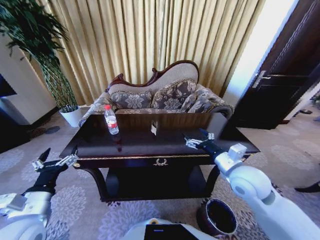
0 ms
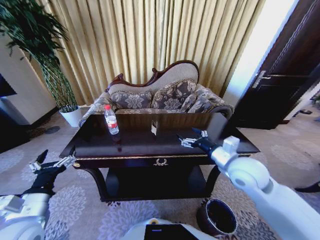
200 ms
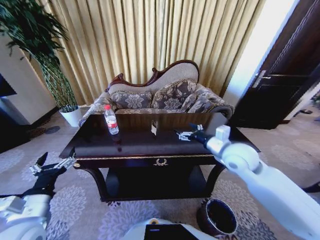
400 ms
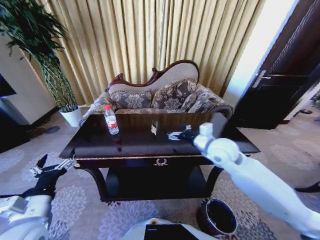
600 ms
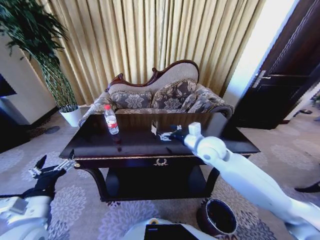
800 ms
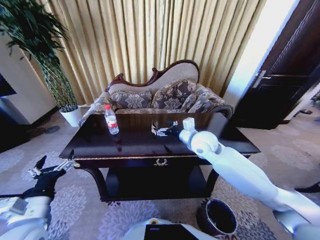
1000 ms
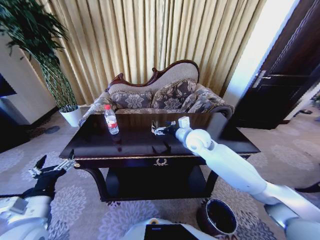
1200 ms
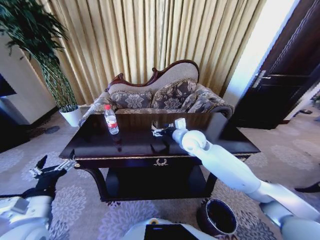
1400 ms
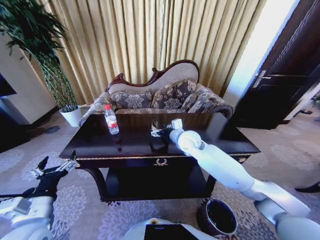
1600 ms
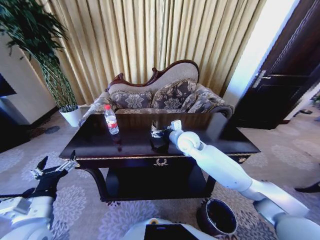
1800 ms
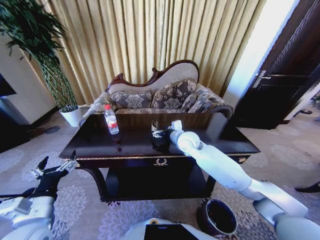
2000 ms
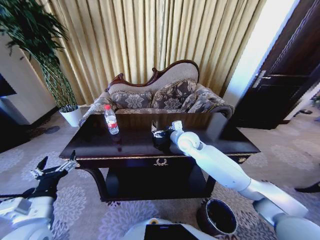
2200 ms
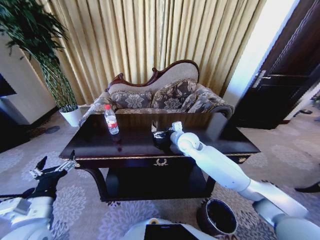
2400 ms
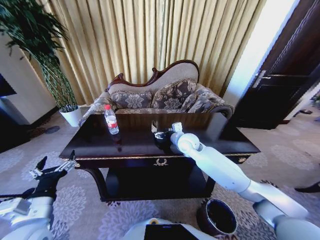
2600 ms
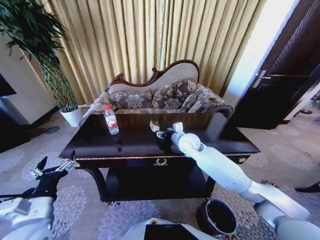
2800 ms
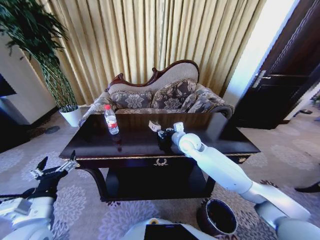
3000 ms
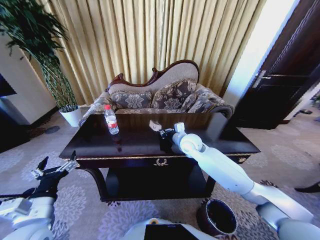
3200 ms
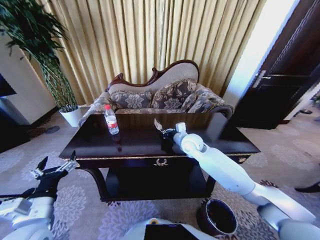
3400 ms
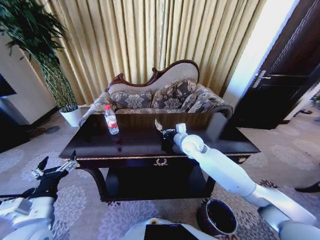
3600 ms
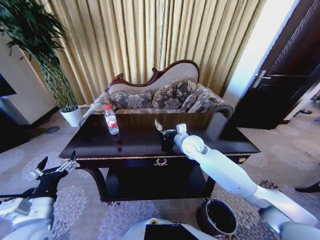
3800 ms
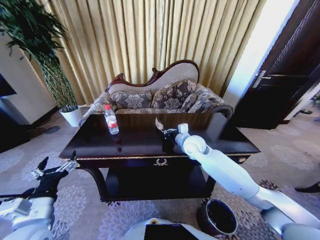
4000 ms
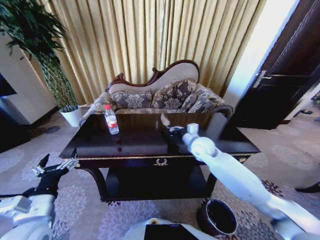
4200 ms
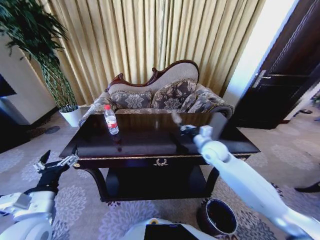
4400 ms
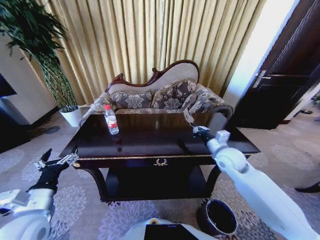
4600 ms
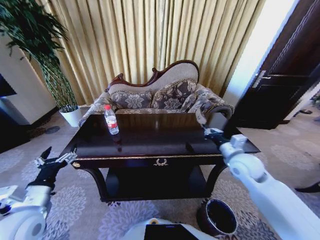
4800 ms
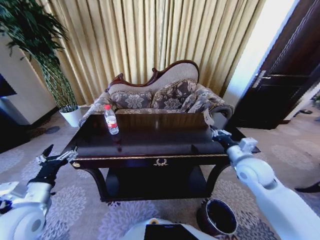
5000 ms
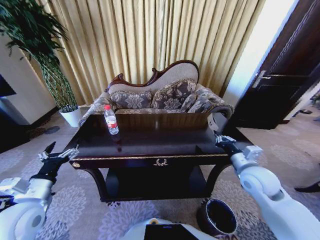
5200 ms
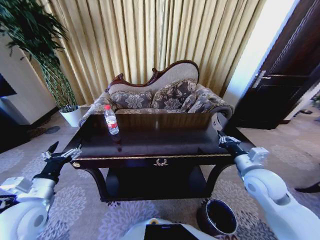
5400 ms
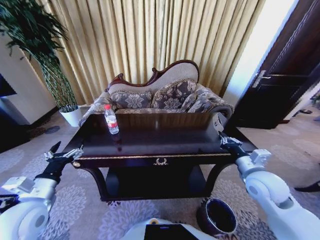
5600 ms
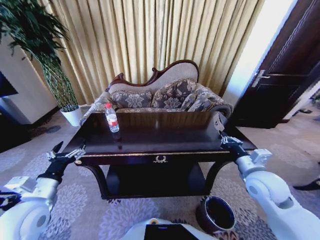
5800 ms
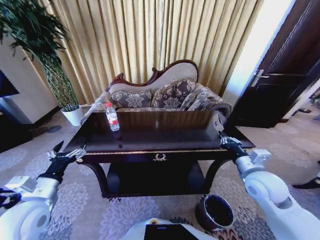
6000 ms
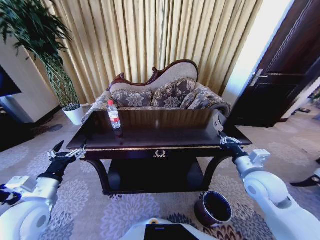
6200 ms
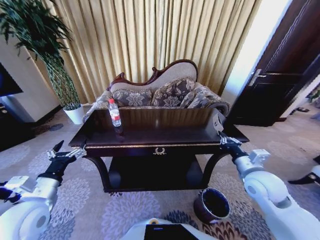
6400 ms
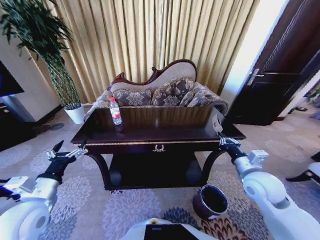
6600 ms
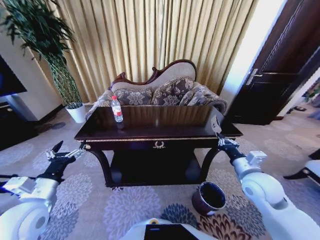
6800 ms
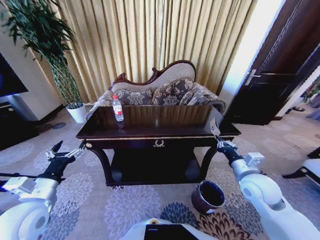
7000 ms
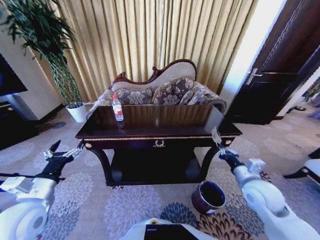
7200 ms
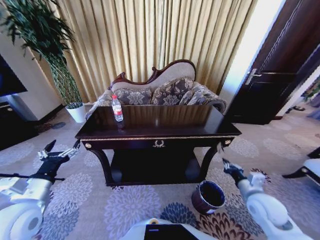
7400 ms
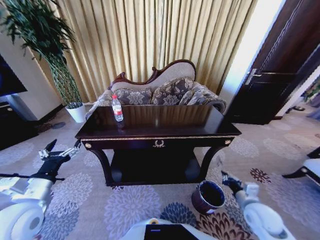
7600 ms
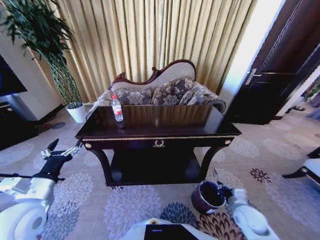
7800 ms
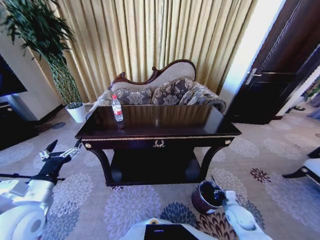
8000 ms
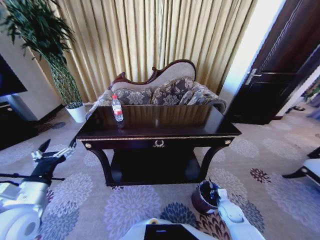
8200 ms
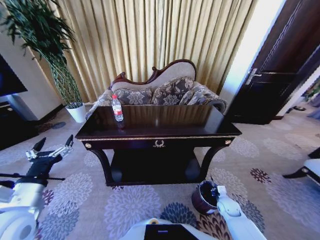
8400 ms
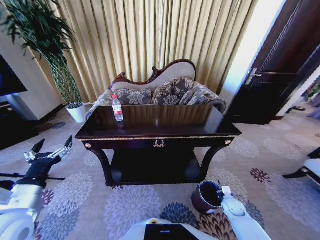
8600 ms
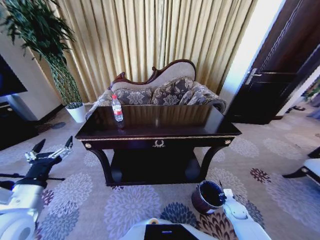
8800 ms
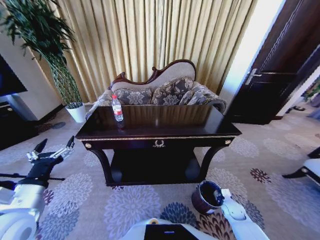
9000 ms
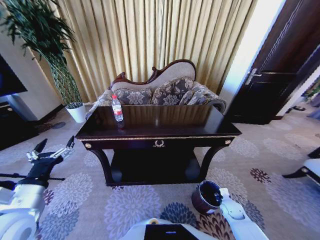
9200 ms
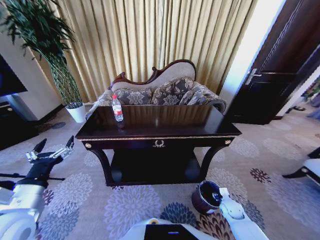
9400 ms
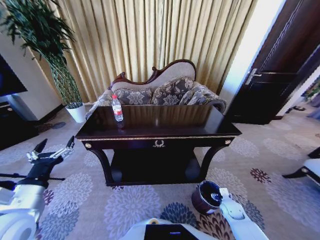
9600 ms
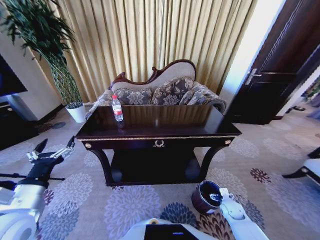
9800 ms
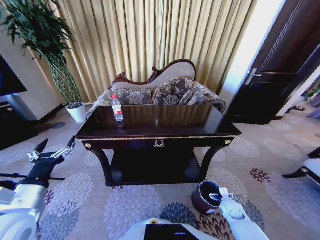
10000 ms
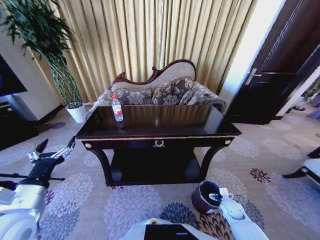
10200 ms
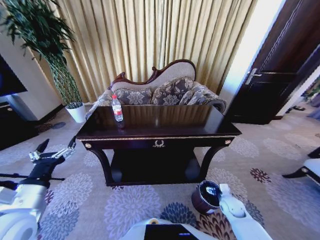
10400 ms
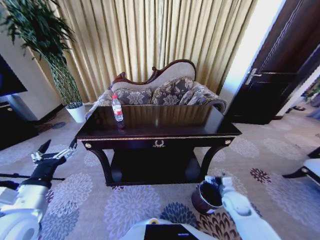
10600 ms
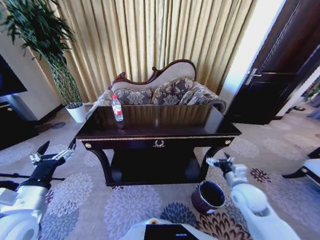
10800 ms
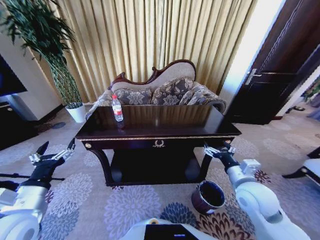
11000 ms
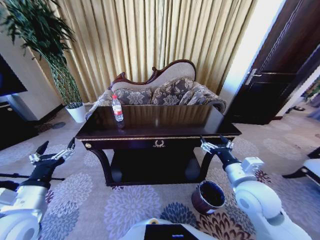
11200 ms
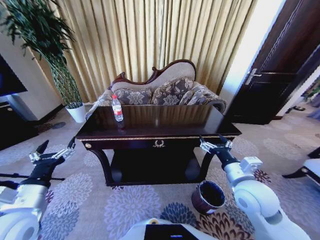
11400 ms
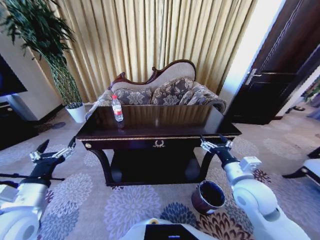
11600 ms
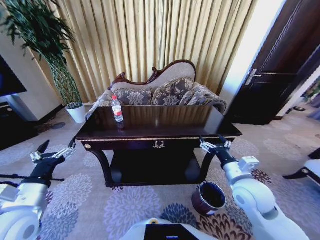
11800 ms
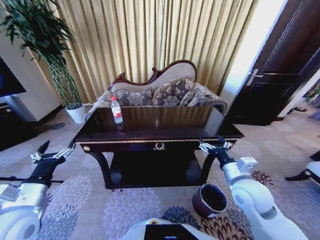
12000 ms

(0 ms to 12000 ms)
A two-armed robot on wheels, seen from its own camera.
Task of the whole recording: Move to the front of the table and place the trash on the table into the trash bin.
0 ms - 1600 ms: The right gripper goes some 20 cm forward and to the left.
1600 ms - 3000 ms: The right gripper closes up.
3000 ms - 4400 ms: The right gripper goes some 10 cm to the right, and closes up.
4400 ms - 6000 ms: The right gripper travels backward and to the right by some 15 cm.
6000 ms - 7600 ms: The right gripper heads downward and backward, covering approximately 15 cm.
7600 ms - 9000 ms: The right gripper is displaced downward by roughly 20 cm.
9000 ms - 10400 ms: The right gripper opens up.
10400 ms - 12000 ms: The right gripper goes about 25 cm upward.

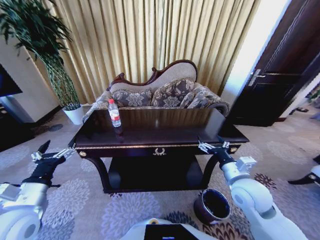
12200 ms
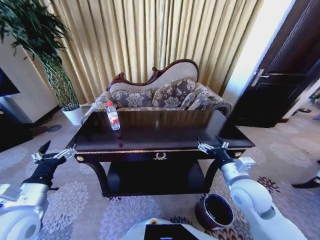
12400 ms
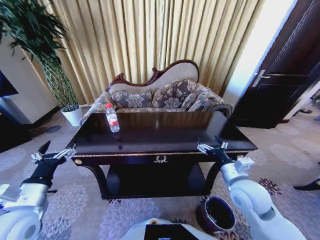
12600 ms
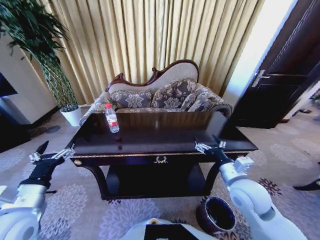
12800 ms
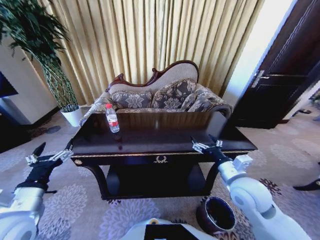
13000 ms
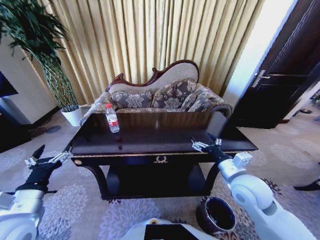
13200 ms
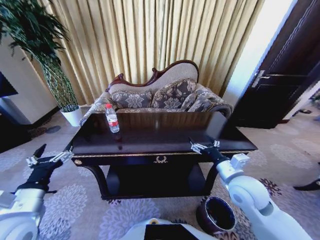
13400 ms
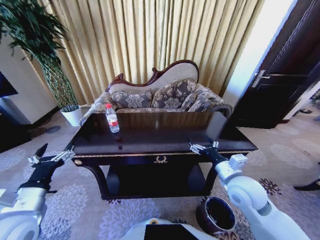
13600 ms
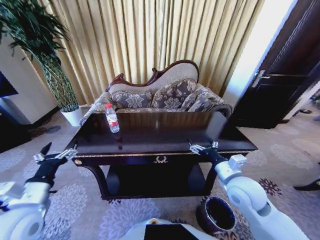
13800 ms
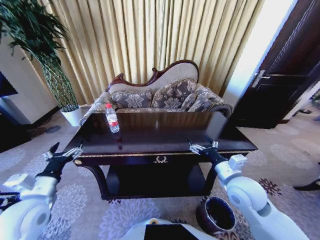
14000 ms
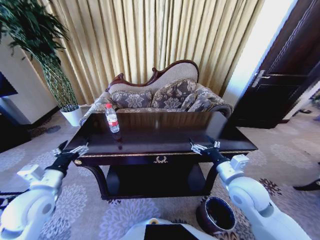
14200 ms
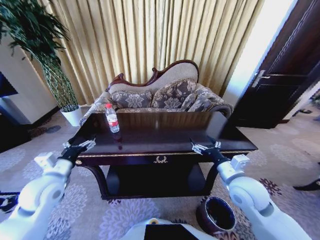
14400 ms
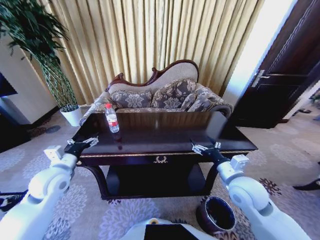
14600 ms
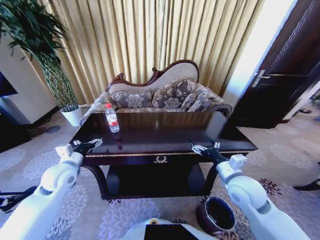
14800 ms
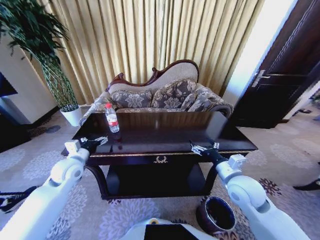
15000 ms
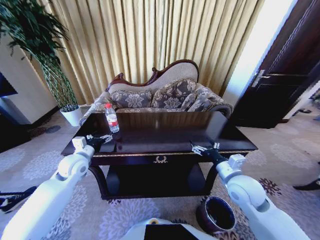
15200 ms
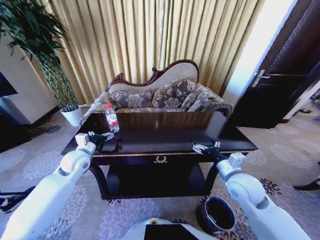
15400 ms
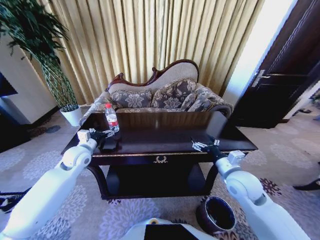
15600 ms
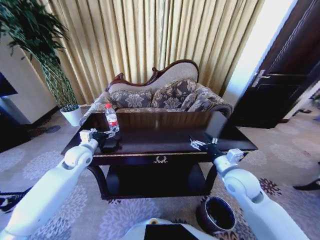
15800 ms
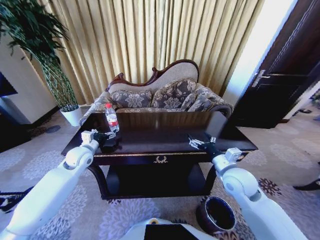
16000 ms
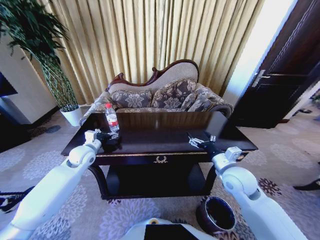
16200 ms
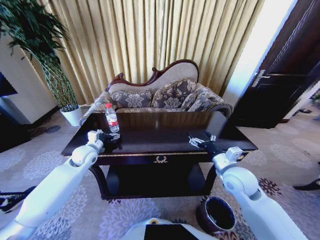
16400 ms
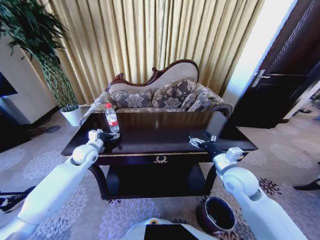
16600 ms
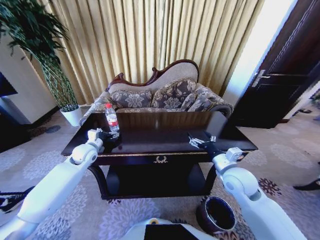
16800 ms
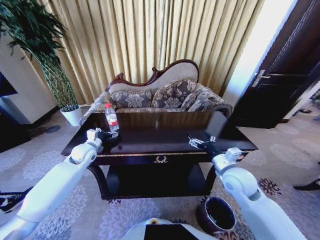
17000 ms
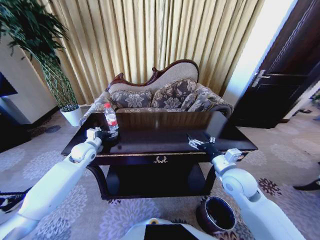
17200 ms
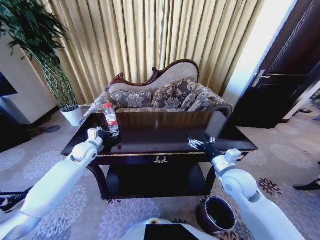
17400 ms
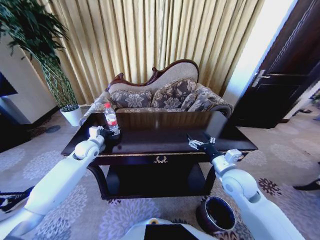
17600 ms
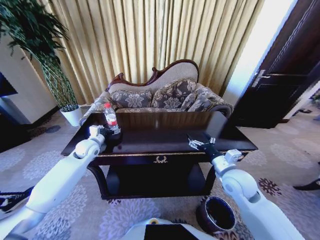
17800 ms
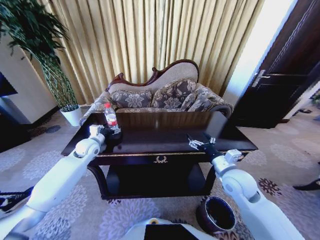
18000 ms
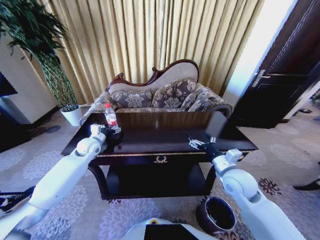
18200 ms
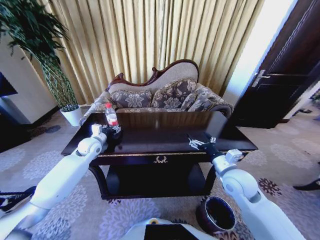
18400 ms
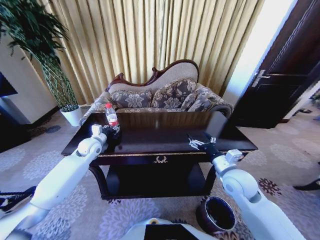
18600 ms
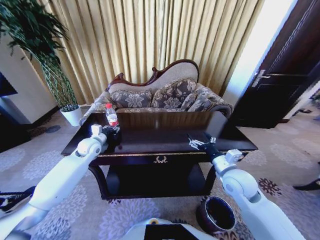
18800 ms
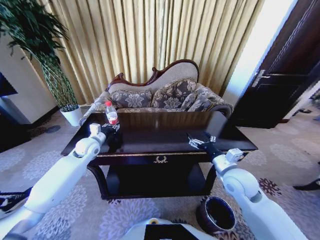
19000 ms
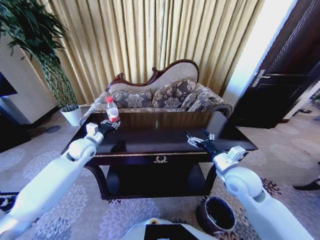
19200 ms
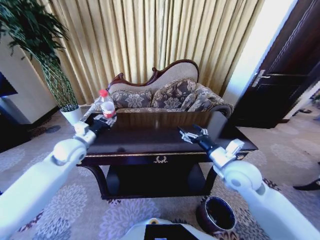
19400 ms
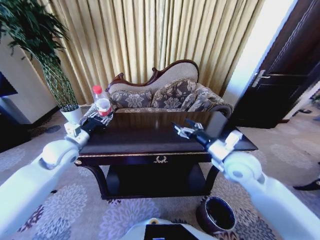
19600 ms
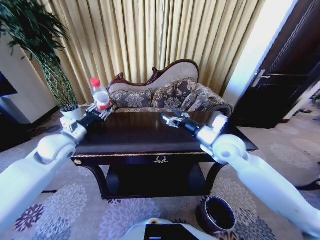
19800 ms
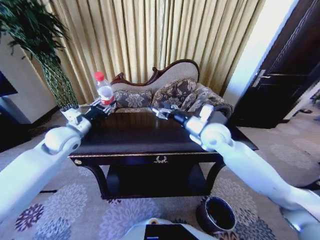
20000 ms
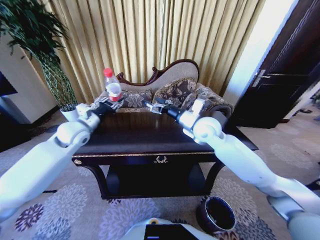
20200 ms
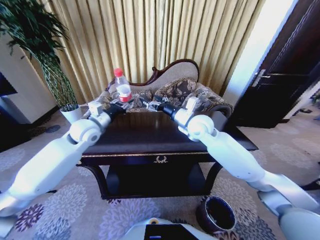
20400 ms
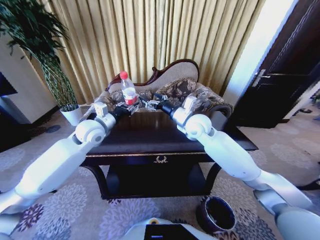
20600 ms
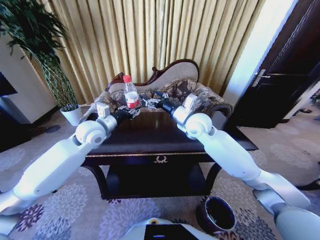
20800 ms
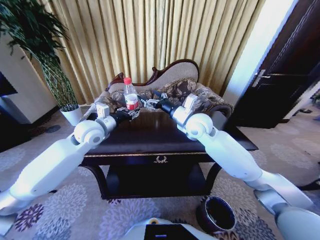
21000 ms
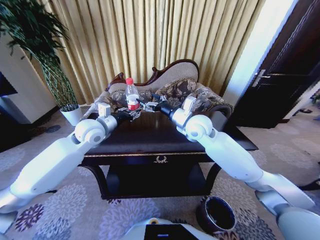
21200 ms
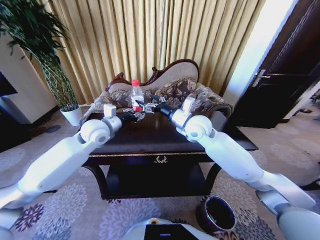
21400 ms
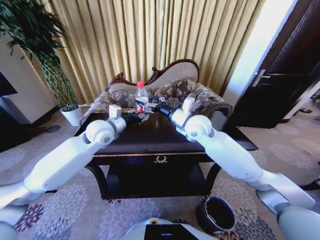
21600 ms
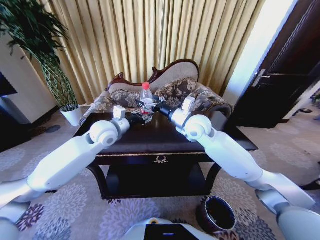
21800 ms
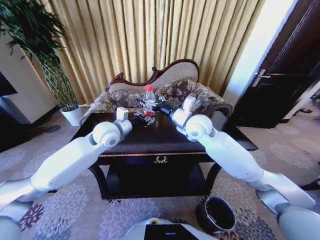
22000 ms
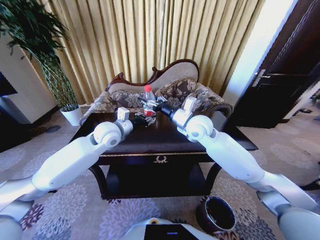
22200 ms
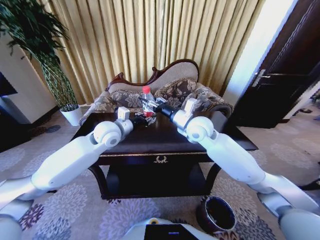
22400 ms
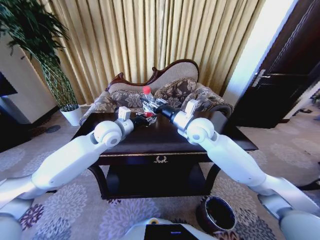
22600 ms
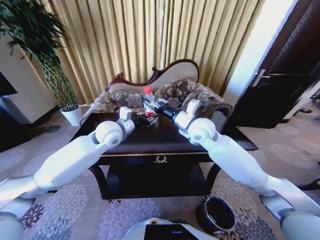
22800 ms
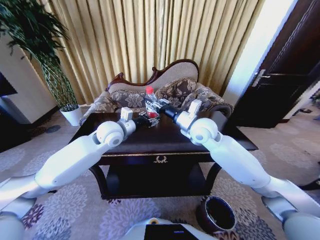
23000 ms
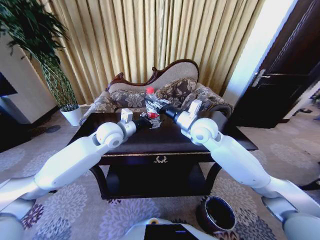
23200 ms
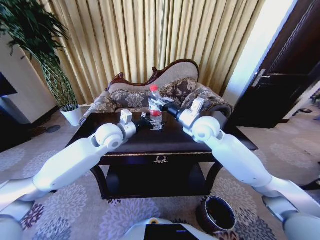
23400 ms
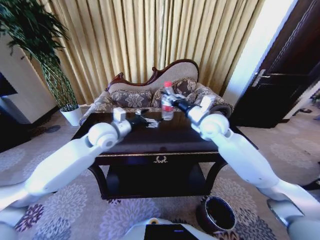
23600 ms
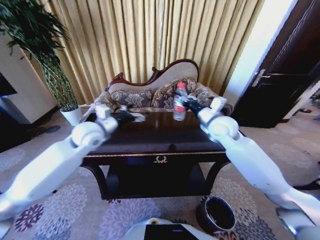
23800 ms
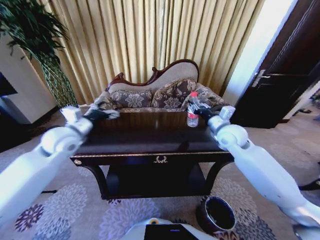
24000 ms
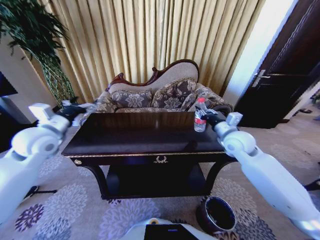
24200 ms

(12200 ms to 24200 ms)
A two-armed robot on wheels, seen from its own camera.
Task of the whole recording: Move to the front of the table and place the trash on the table into the trash bin.
13800 ms - 15200 ms: The left gripper goes roughly 20 cm forward.
15200 ms - 16600 ms: The left gripper heads forward, covering approximately 5 cm.
16600 ms - 18200 ms: The grippers move only a little.
18200 ms - 19800 ms: The right gripper goes roughly 10 cm upward and forward, while the left gripper travels upward and backward by about 15 cm, and closes.
19800 ms - 21200 ms: The right gripper travels to the left and forward by approximately 15 cm; the left gripper travels to the right and forward by approximately 10 cm.
21200 ms - 22600 ms: The right gripper closes its fingers; the left gripper moves to the right, about 5 cm.
22600 ms - 24200 ms: The left gripper is displaced to the left by about 20 cm, and opens up, while the right gripper shifts about 15 cm to the right.
